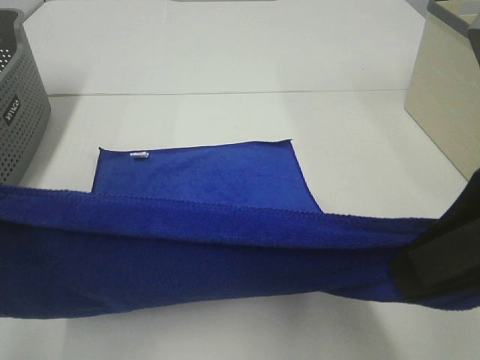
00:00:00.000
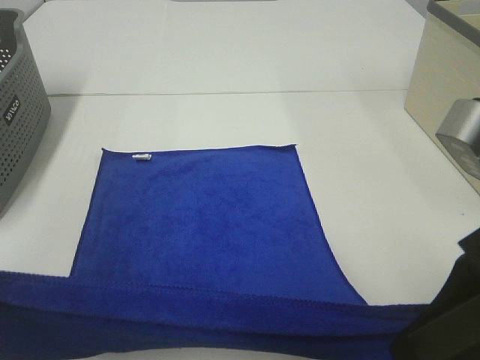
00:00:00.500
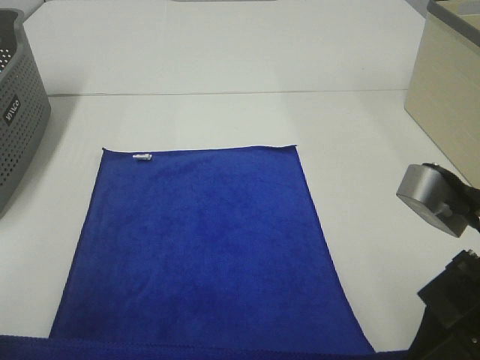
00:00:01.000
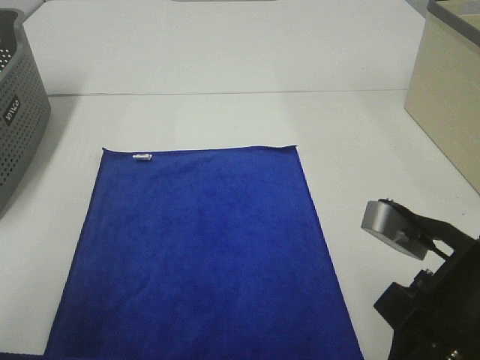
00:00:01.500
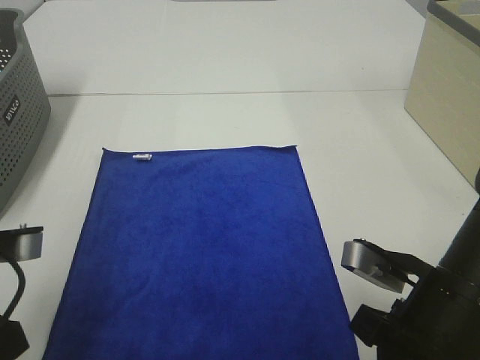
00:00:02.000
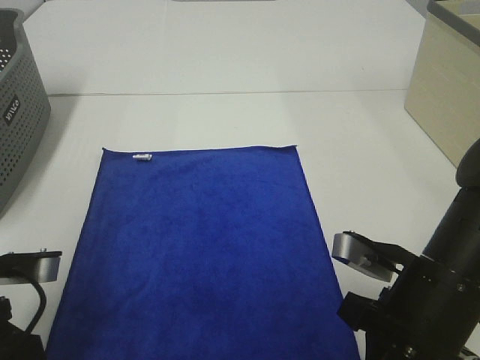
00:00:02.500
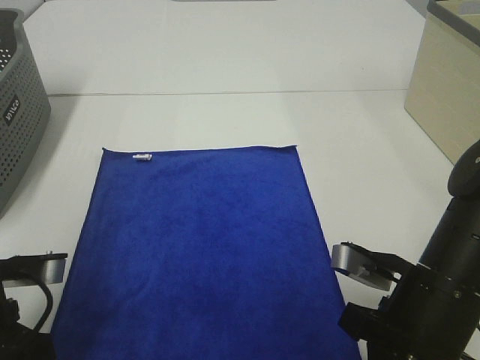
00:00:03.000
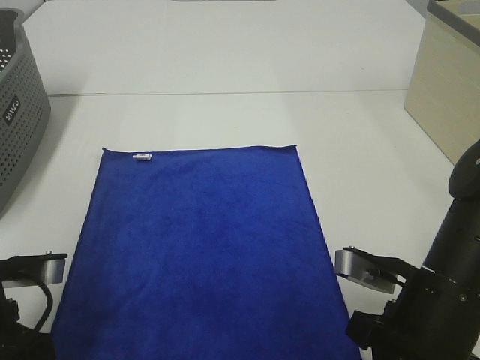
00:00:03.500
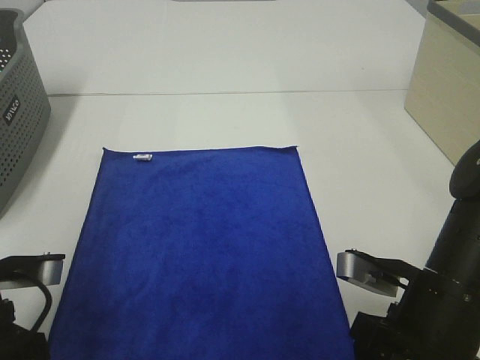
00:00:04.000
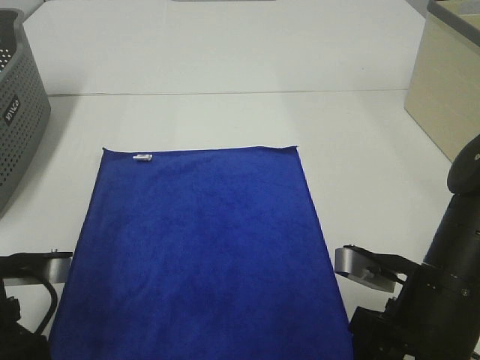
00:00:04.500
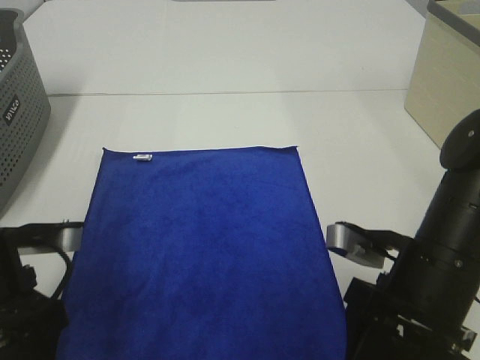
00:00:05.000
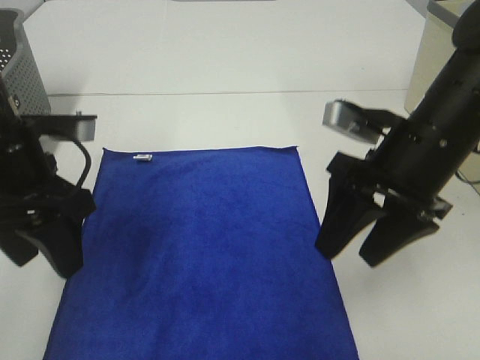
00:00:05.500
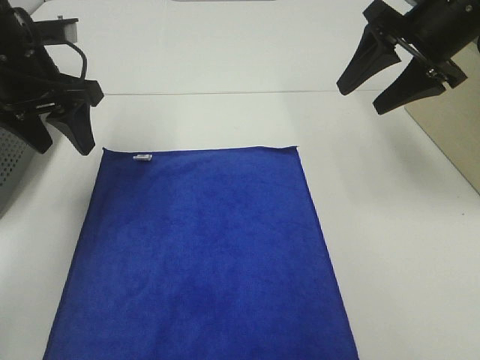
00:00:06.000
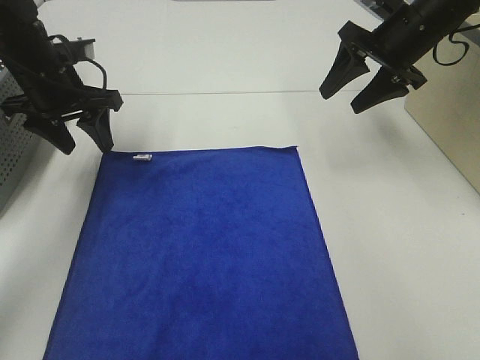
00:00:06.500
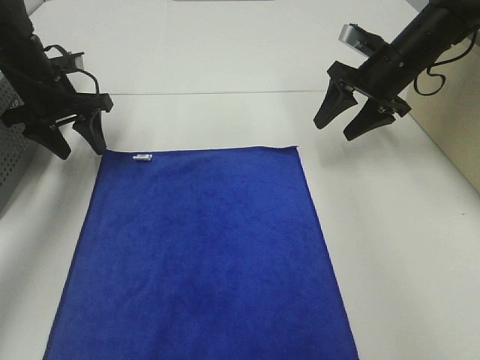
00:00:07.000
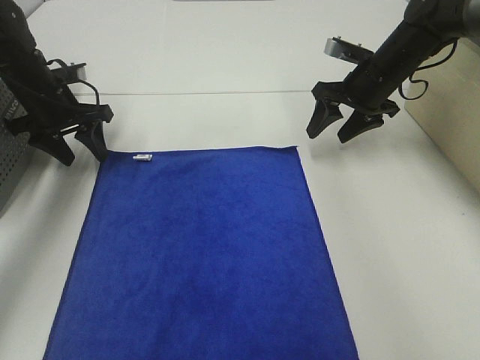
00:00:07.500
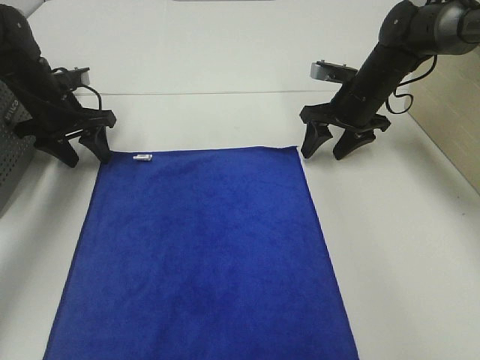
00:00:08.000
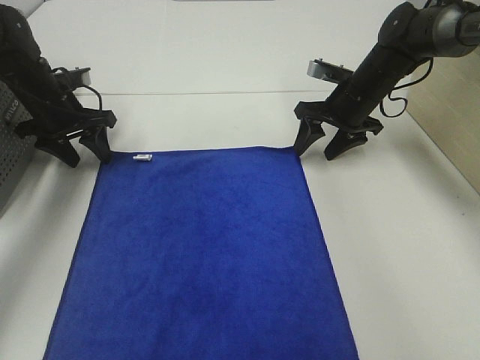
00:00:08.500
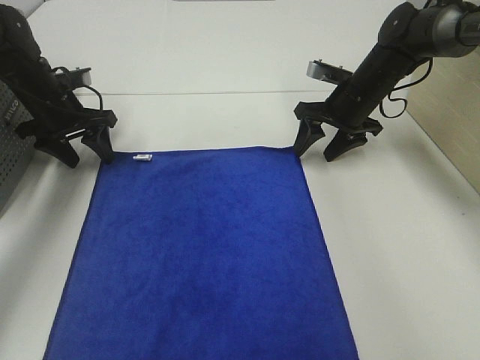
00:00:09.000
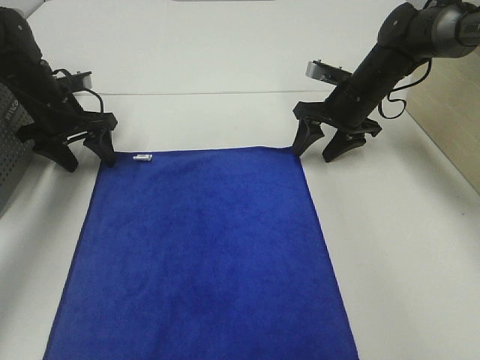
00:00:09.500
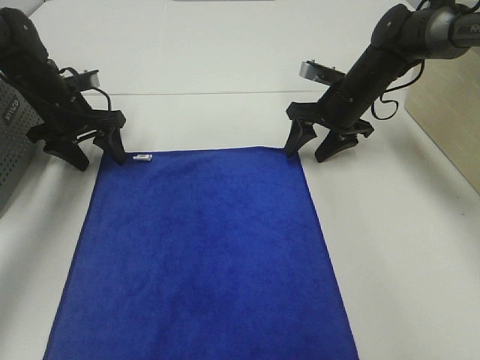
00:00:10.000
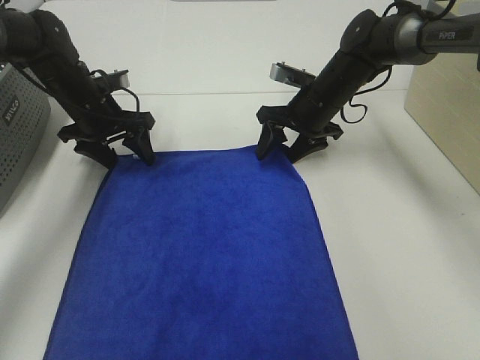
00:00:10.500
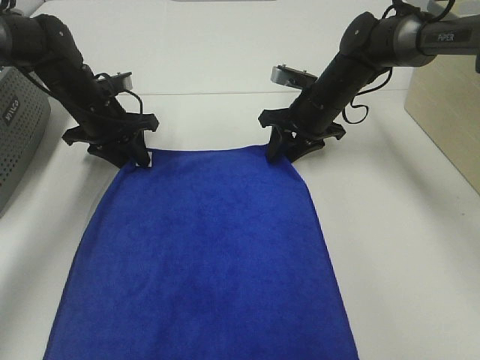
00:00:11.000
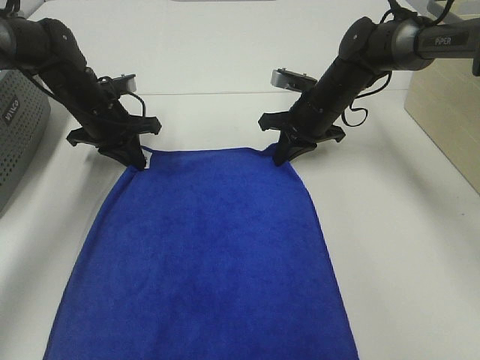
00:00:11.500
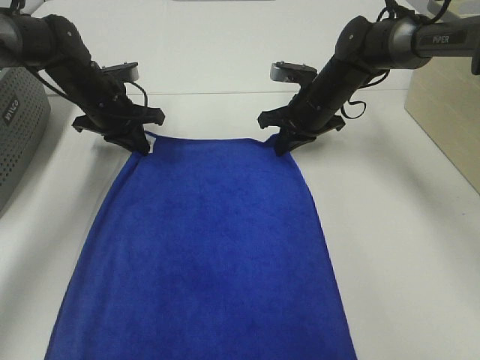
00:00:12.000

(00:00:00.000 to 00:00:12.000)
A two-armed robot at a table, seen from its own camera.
Task of the whole recording: Remove the towel and place it.
Step, 00:00:00.000 - 00:00:08.500: Left hand:adjust the blue towel.
Step, 00:00:00.000 - 00:00:08.500: Right hand:adjust the blue towel.
00:00:00.000 - 00:00:02.000: Both grippers move downward, some 15 cm.
00:00:02.000 - 00:00:04.000: The left gripper opens up; the right gripper opens its fingers.
00:00:04.000 - 00:00:06.000: Both grippers travel together forward and upward, approximately 25 cm.
00:00:06.000 - 00:00:08.000: Both grippers travel together downward and forward, roughly 15 cm.
00:00:08.000 - 00:00:10.000: The grippers make only small movements.
00:00:10.000 - 00:00:12.000: The left gripper is displaced to the right by roughly 5 cm, and closes up. Meanwhile the right gripper closes its fingers.

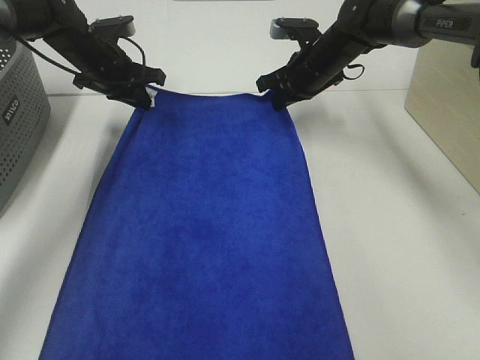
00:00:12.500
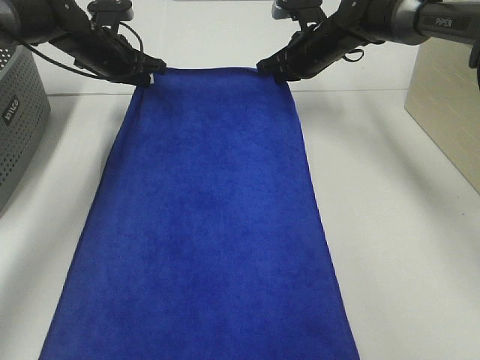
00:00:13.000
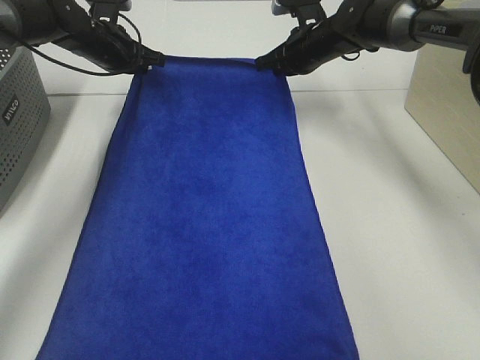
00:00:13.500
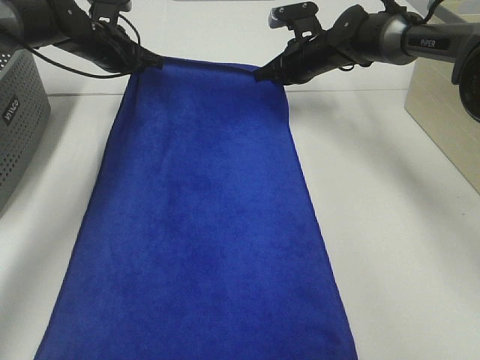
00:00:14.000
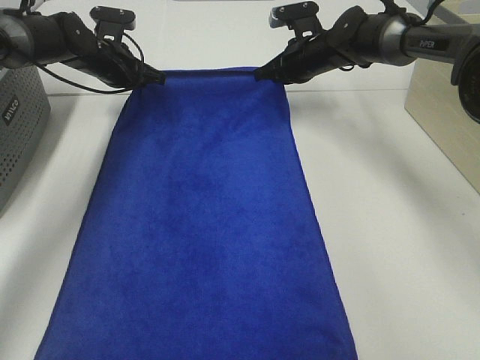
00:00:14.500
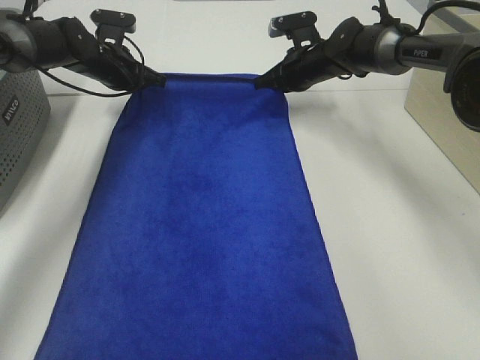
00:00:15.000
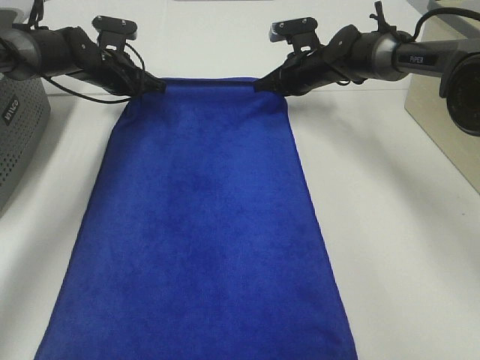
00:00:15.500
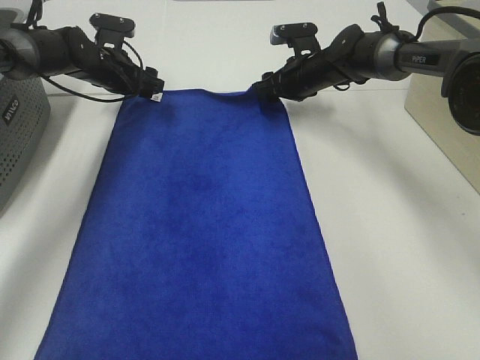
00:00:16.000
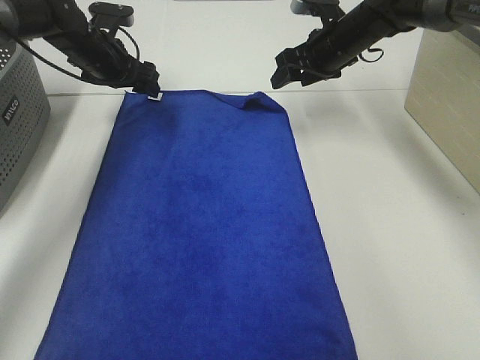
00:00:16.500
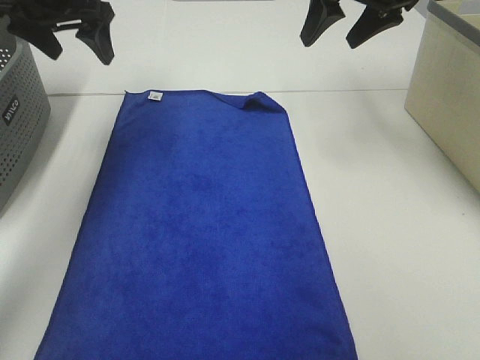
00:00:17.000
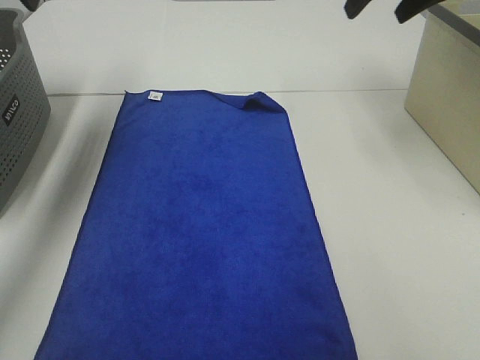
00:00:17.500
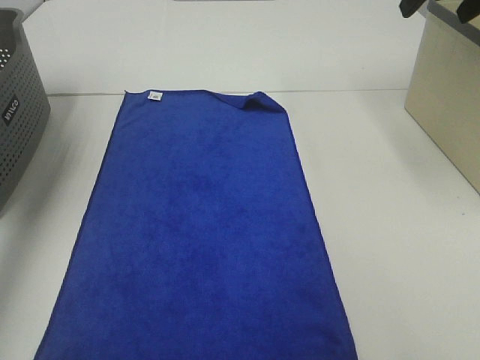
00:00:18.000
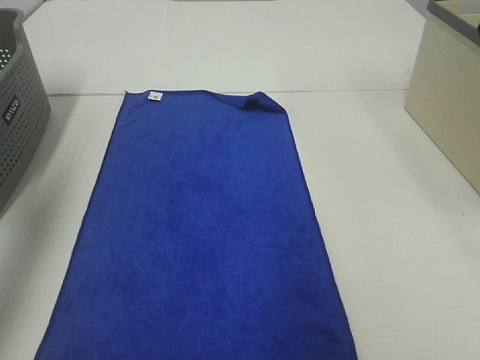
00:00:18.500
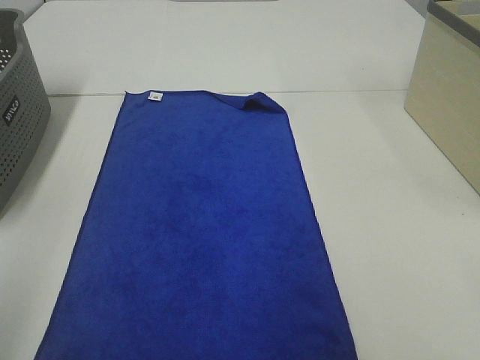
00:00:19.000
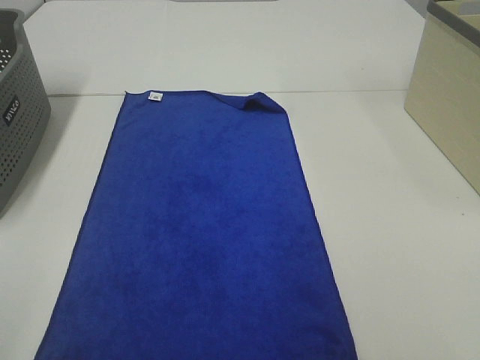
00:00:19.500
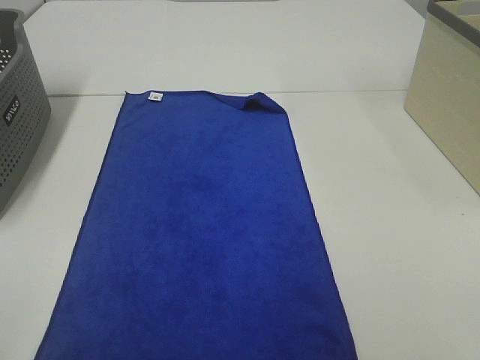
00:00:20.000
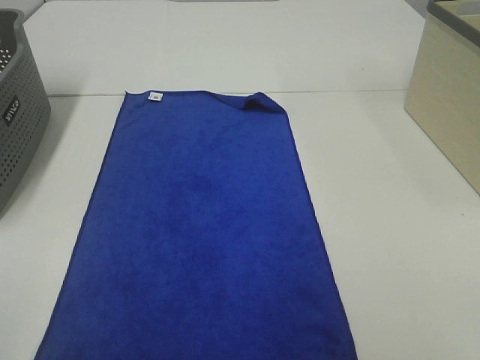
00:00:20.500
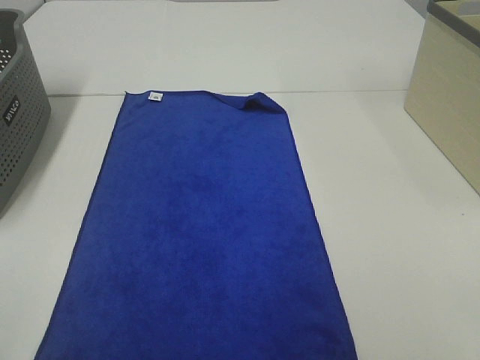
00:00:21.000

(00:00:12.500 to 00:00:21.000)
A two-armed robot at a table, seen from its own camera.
Task of the whole recording: Remove the towel and place it.
00:00:14.500 - 00:00:16.500: The right gripper ends up roughly 5 cm from where it was, and opens its fingers. Meanwhile the left gripper opens its fingers.
00:00:16.500 - 00:00:19.000: Both grippers move backward and upward, roughly 50 cm.
00:00:19.000 - 00:00:21.000: The left gripper goes approximately 15 cm downward and backward.

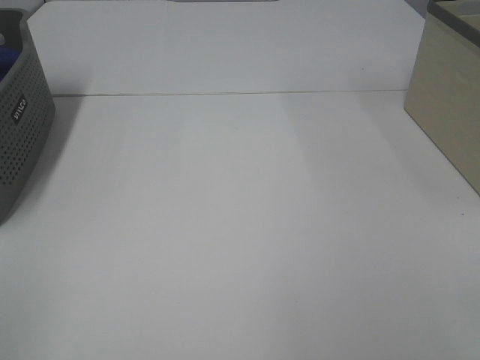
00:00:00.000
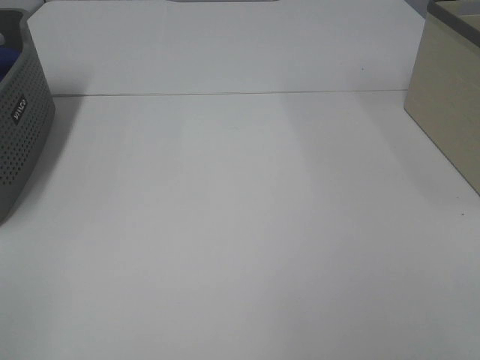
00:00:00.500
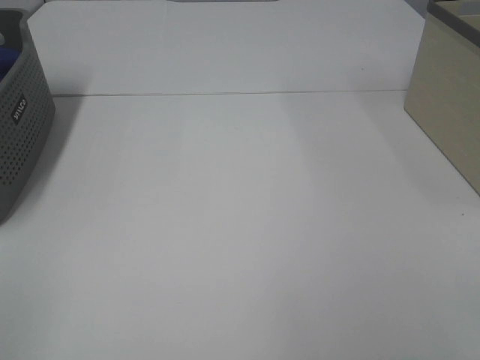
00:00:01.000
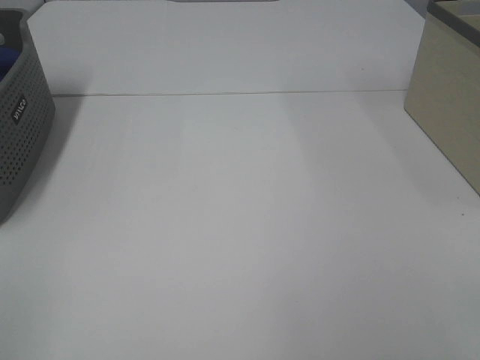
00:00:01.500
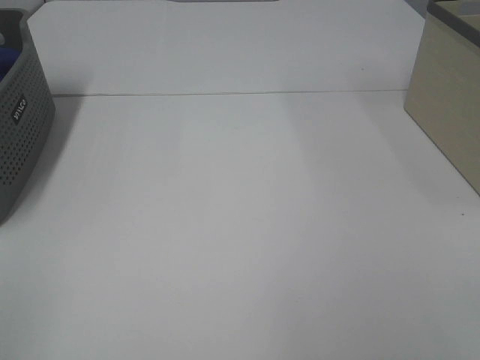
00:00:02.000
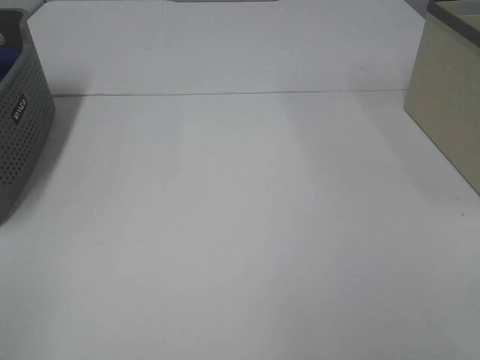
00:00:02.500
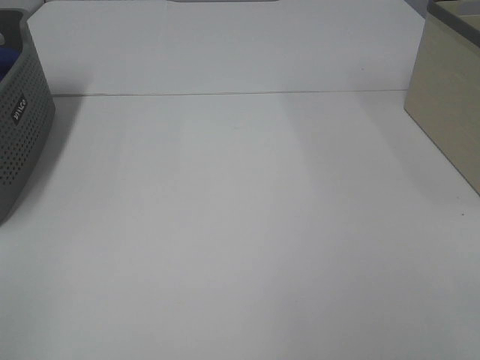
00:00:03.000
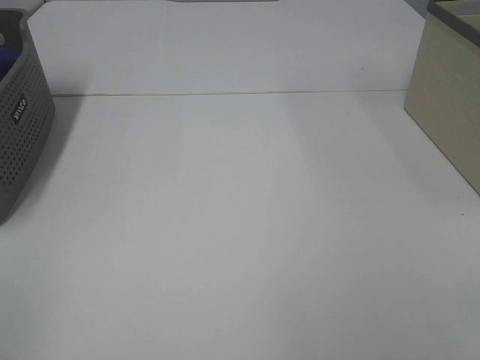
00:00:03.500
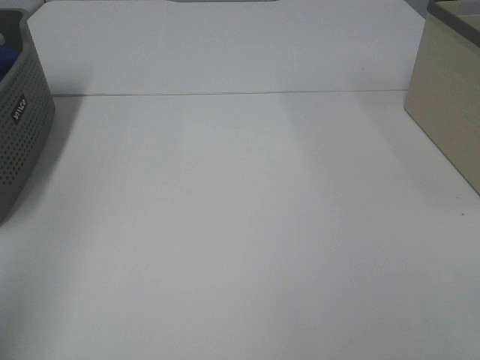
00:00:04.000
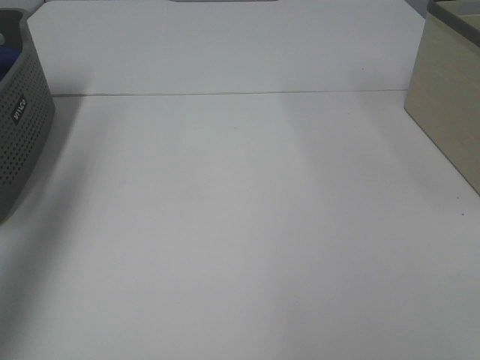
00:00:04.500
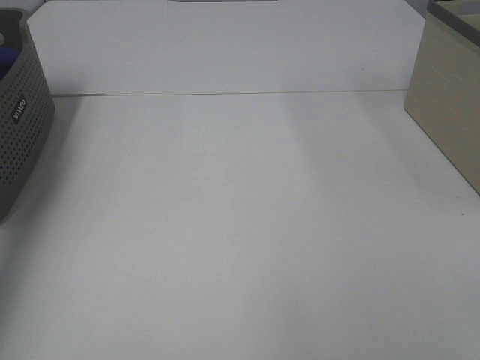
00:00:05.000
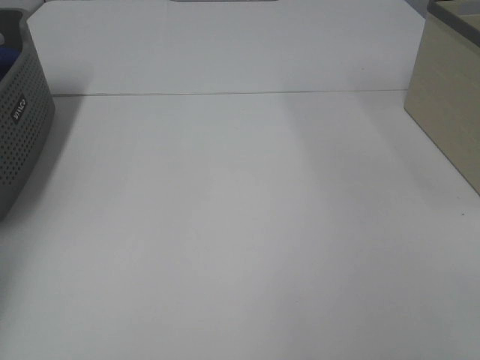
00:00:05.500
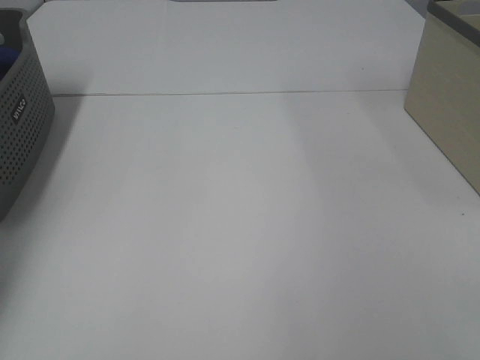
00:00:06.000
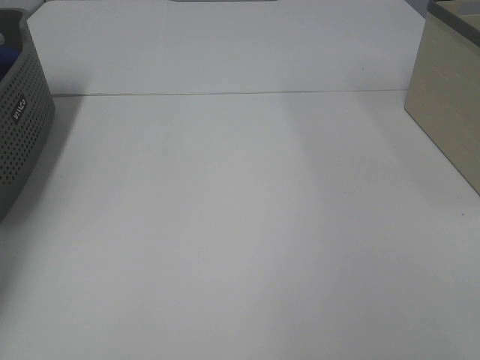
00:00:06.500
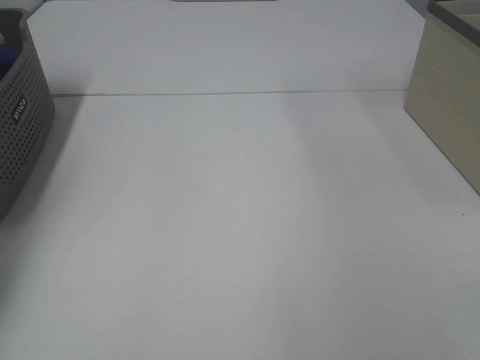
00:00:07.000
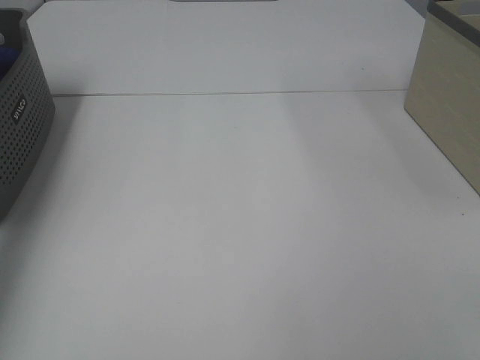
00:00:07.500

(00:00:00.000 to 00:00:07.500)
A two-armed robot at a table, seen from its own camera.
Task of the whole recording: Remove the towel and place it.
00:00:00.000 - 00:00:02.000: The two grippers keep their place.
00:00:04.000 - 00:00:05.500: The left gripper moves forward, about 35 cm.
00:00:05.500 - 00:00:07.500: The left gripper moves upward, roughly 10 cm, and closes its fingers.
